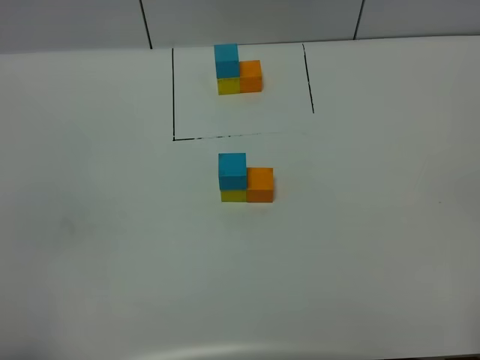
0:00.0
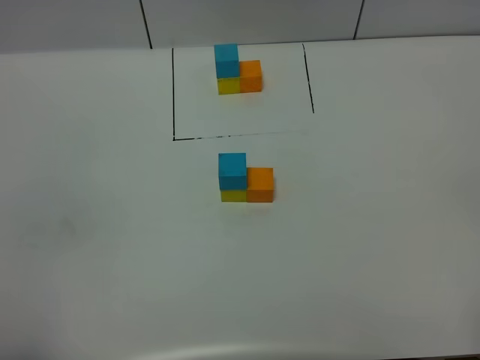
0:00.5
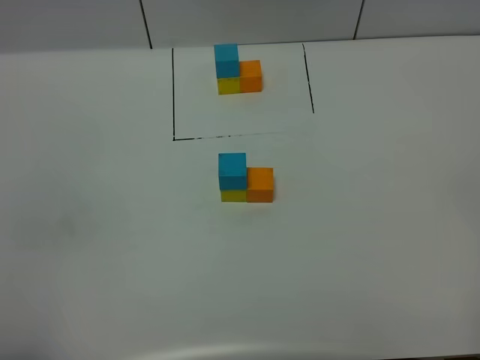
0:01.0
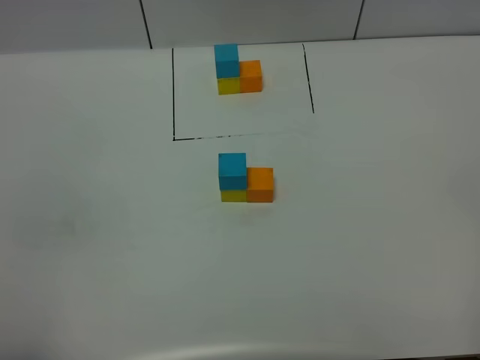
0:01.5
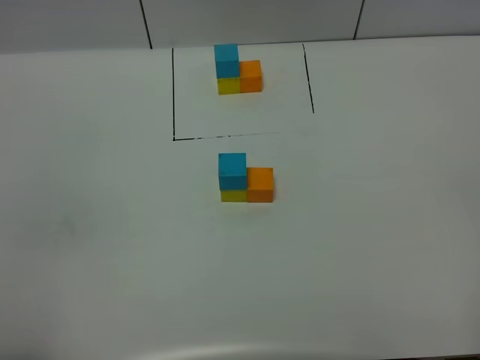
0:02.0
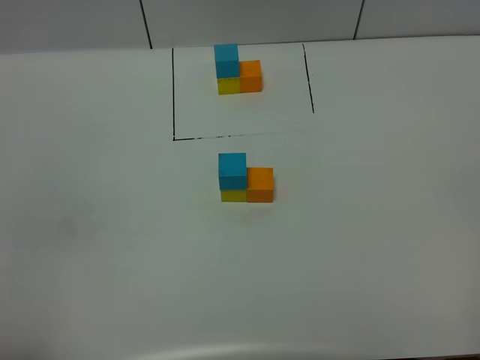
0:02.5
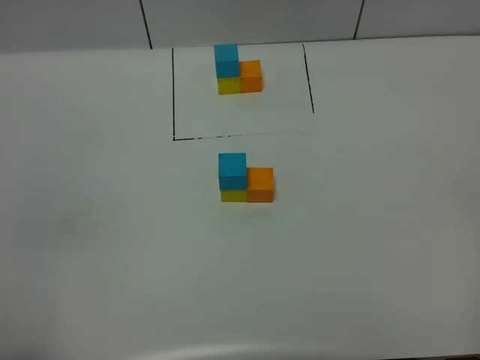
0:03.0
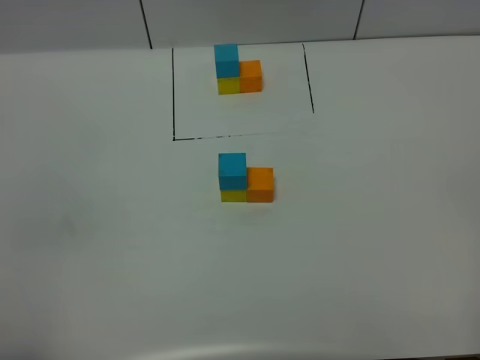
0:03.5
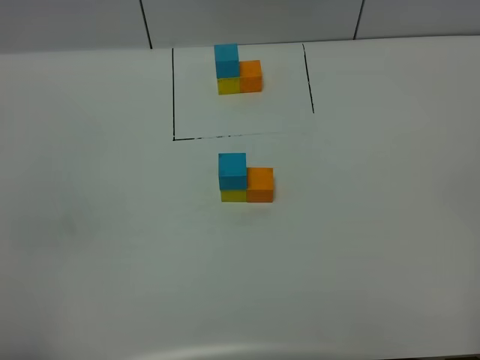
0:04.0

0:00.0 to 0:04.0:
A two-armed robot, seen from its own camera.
Task of the whole recording: According to the building block template in front, assemble the scattered blocks together.
0:02.0 to 0:04.0: Neither gripper changes place.
